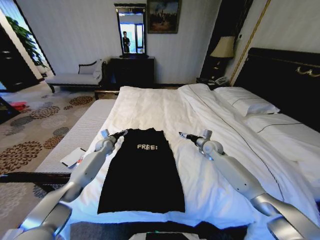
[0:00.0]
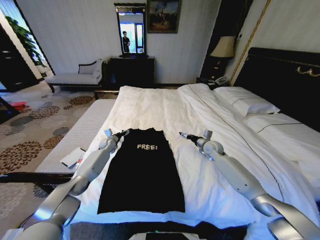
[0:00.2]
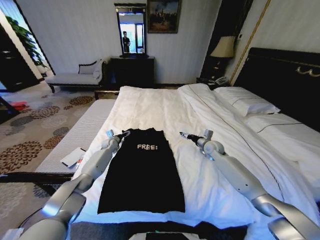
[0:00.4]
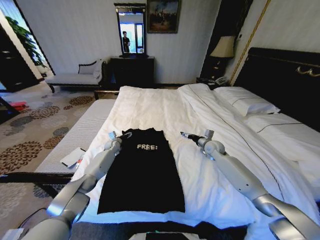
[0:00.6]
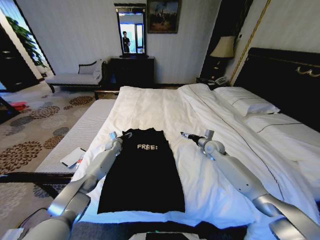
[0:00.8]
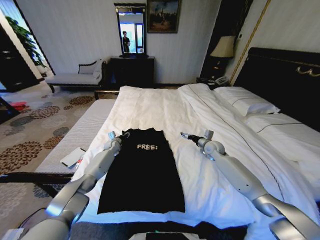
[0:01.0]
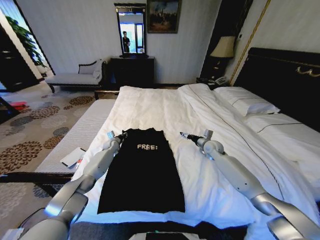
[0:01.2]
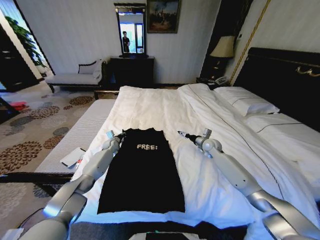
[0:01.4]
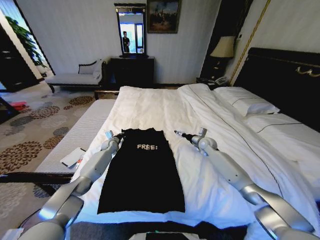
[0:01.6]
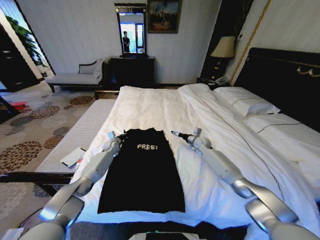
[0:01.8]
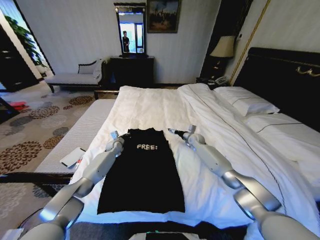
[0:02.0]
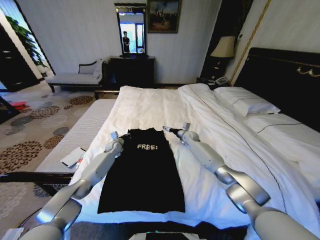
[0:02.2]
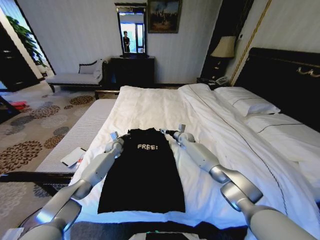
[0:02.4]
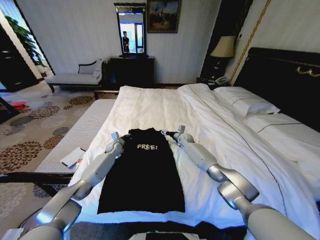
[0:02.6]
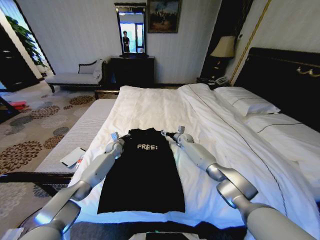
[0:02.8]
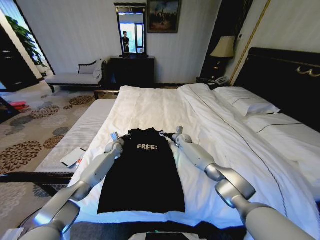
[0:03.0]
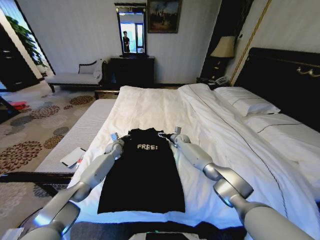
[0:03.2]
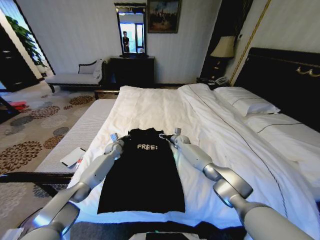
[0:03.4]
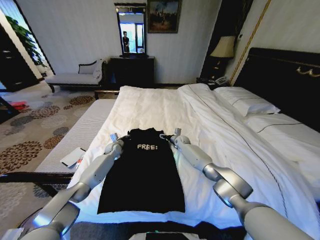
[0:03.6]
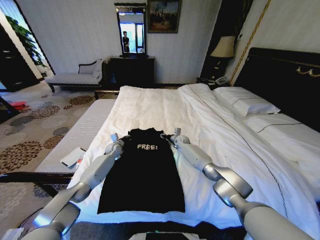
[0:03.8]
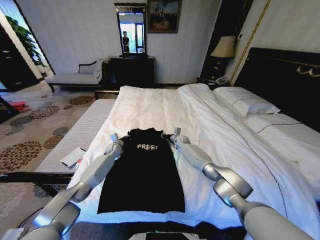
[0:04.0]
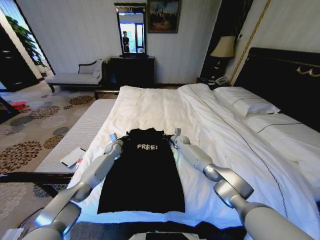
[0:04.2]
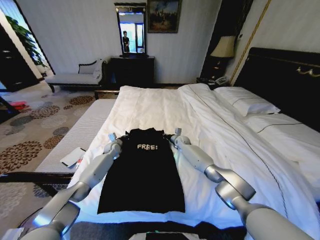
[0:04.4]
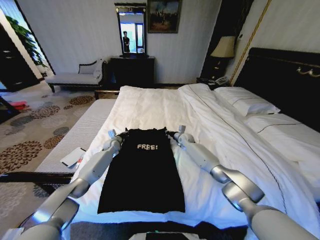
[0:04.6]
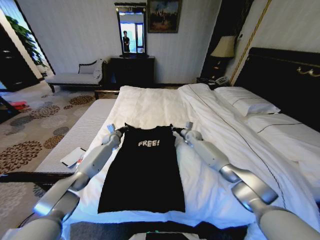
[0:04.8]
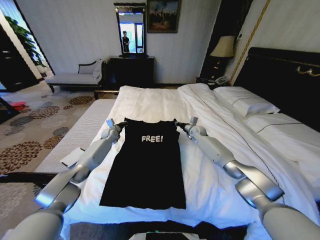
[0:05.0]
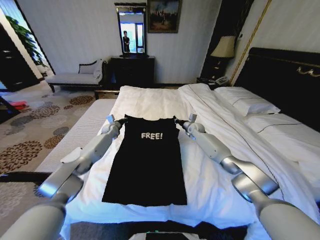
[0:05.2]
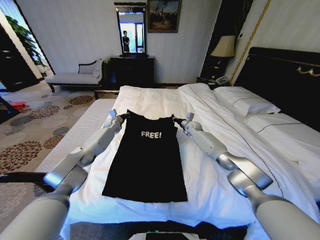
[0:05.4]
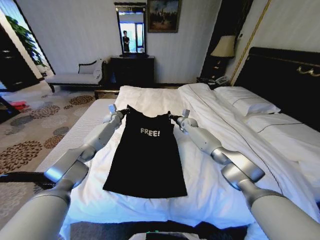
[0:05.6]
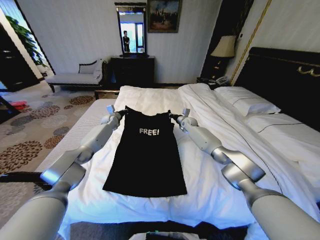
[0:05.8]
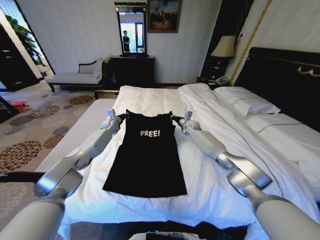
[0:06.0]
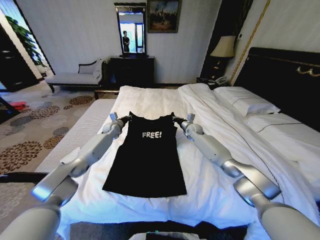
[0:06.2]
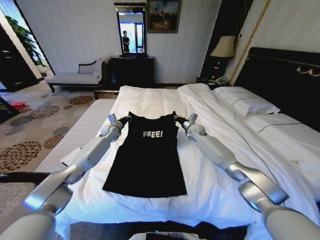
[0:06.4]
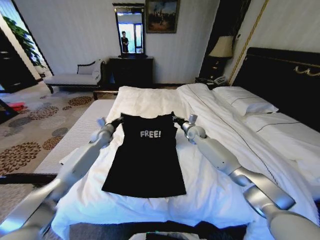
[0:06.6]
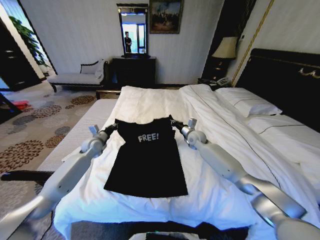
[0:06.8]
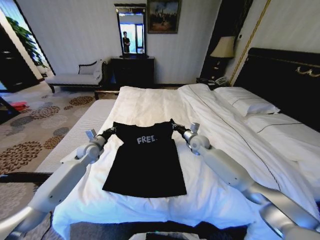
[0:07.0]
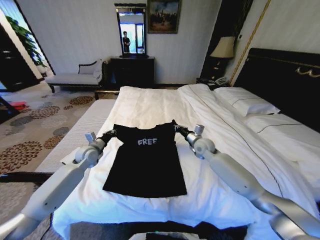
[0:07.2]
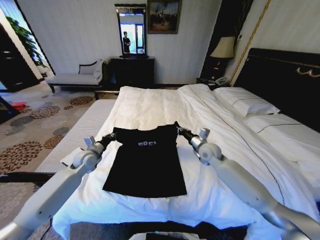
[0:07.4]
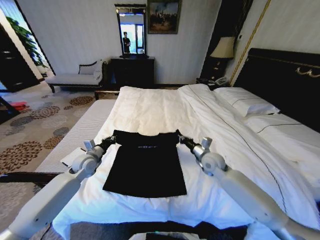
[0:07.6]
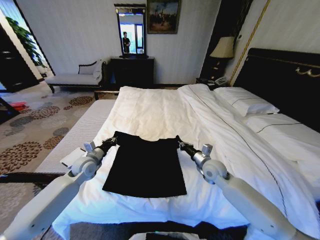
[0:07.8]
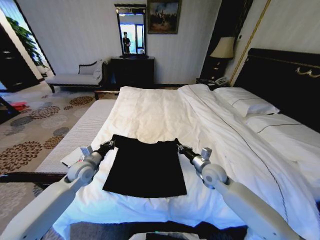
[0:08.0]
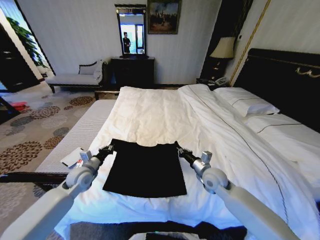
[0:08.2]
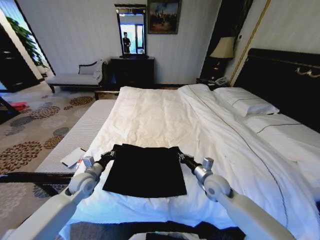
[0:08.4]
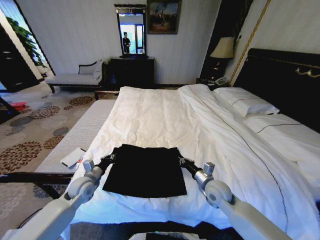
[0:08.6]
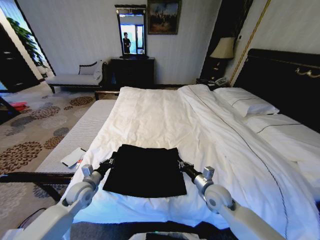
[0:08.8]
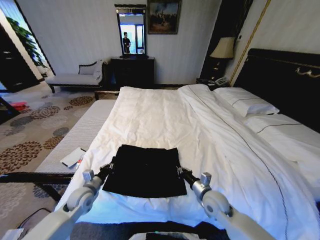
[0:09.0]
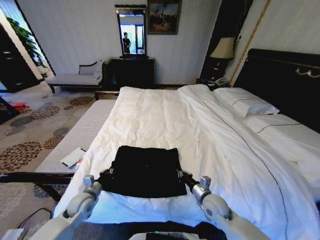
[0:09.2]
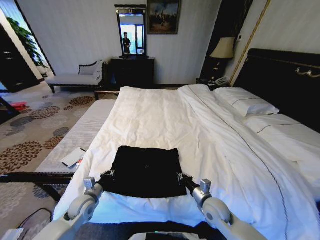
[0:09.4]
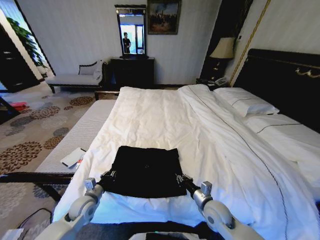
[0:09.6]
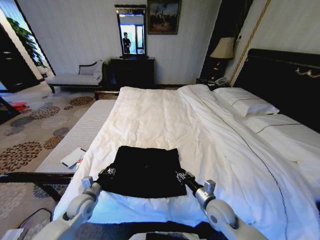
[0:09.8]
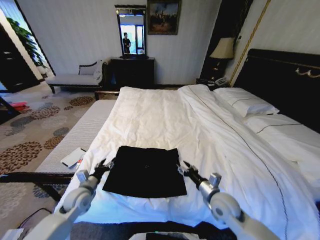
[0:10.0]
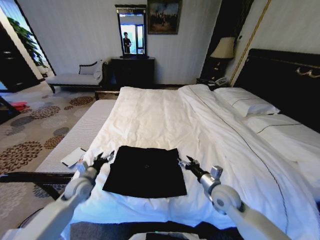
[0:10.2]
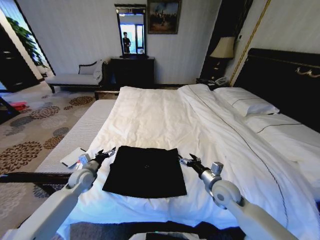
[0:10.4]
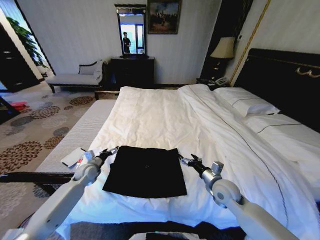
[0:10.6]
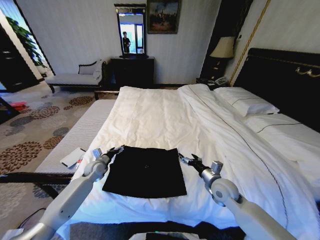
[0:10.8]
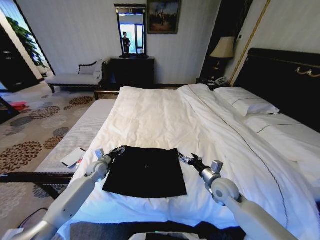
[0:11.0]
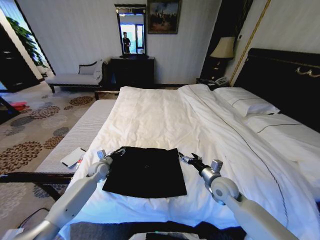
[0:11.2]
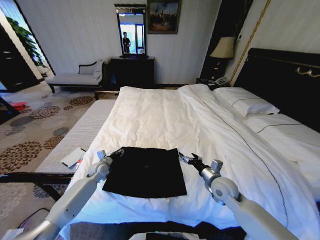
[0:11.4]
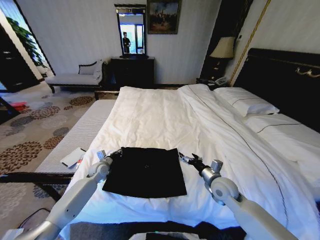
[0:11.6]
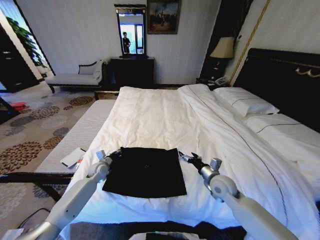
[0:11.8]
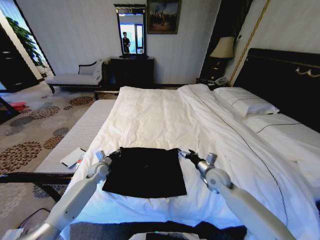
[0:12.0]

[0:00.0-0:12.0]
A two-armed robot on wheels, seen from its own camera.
Task of the whole recording: Fold the clothes on the bed.
0:00.0 to 0:01.6: The left gripper closes its fingers.
0:01.6 to 0:03.0: The right gripper moves to the left, forward and downward, some 15 cm.
0:03.0 to 0:04.4: The right gripper closes up.
0:04.4 to 0:06.0: The left gripper shifts approximately 15 cm upward and forward, while the right gripper travels upward by some 10 cm.
0:06.0 to 0:07.6: Both grippers move backward, about 25 cm.
0:07.6 to 0:09.0: Both grippers travel together backward and downward, about 15 cm.
0:09.0 to 0:10.4: The right gripper shifts about 5 cm upward, and opens its fingers. The left gripper travels forward by approximately 10 cm, and opens.
0:10.4 to 0:12.0: The right gripper shifts some 5 cm forward; the left gripper goes about 10 cm forward and downward, and closes up.

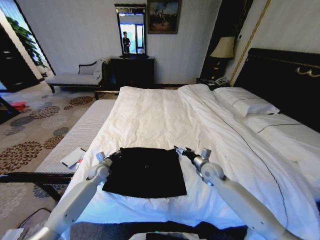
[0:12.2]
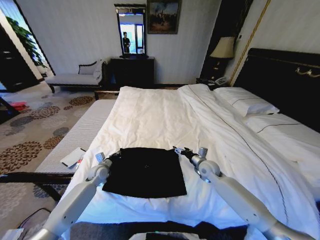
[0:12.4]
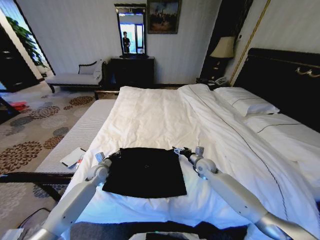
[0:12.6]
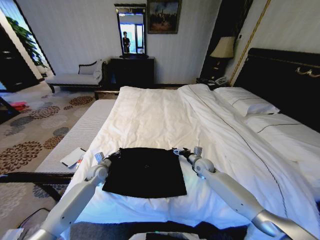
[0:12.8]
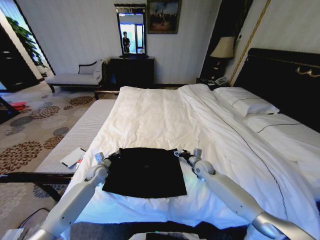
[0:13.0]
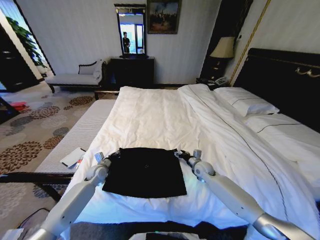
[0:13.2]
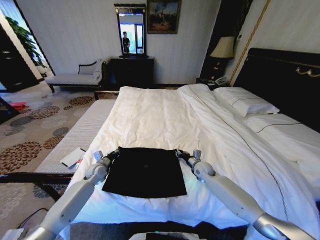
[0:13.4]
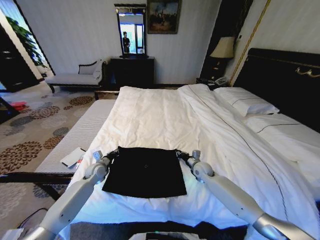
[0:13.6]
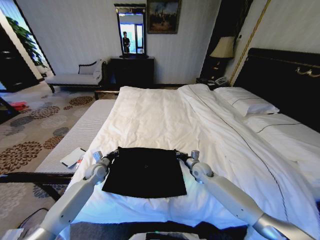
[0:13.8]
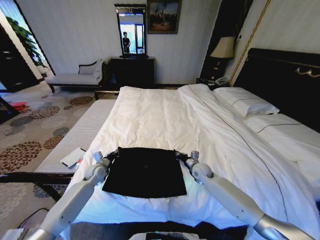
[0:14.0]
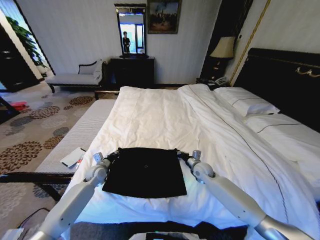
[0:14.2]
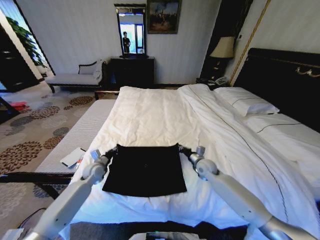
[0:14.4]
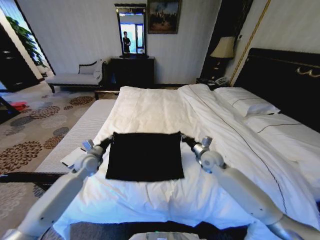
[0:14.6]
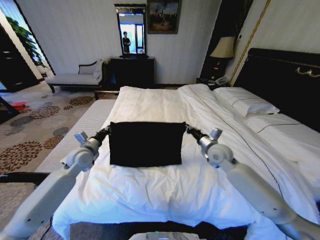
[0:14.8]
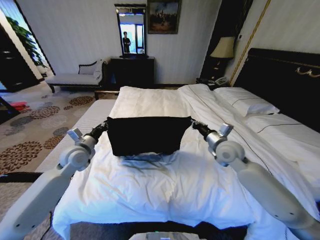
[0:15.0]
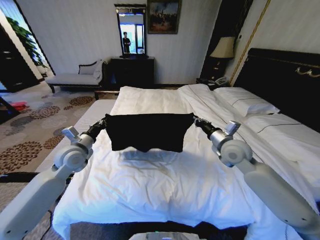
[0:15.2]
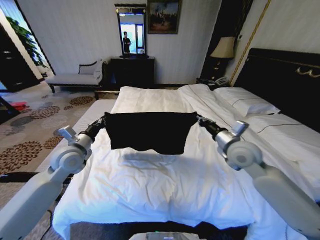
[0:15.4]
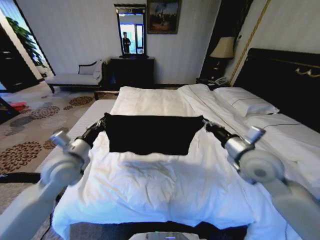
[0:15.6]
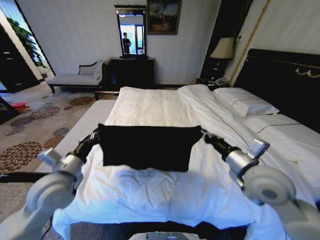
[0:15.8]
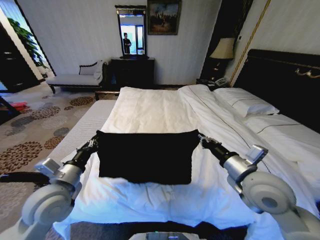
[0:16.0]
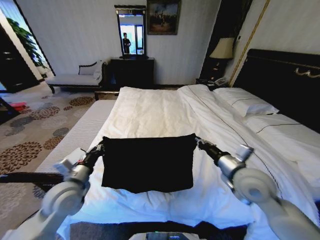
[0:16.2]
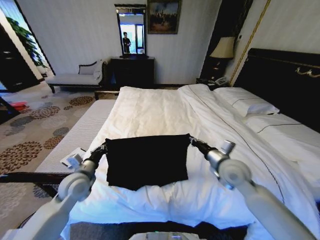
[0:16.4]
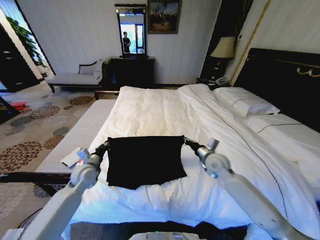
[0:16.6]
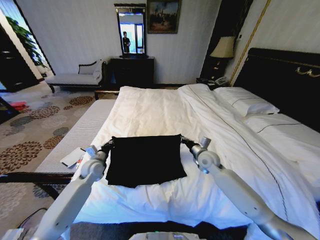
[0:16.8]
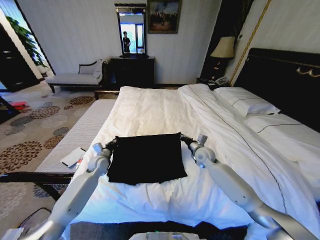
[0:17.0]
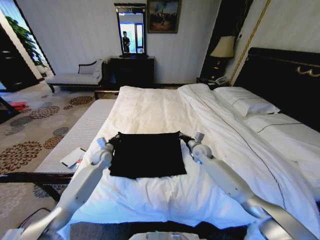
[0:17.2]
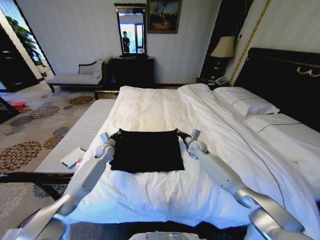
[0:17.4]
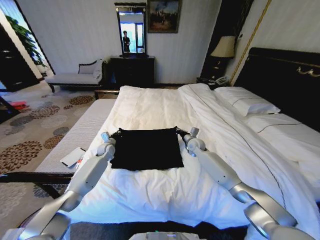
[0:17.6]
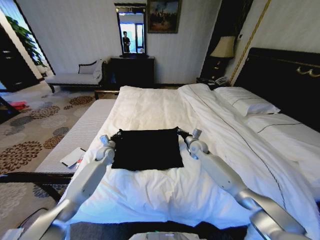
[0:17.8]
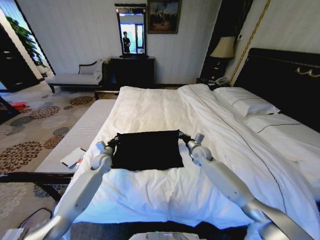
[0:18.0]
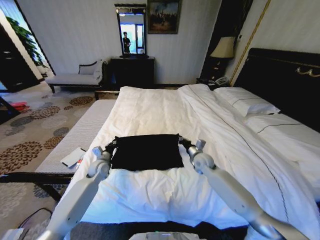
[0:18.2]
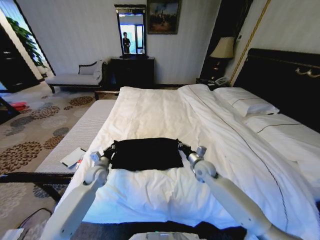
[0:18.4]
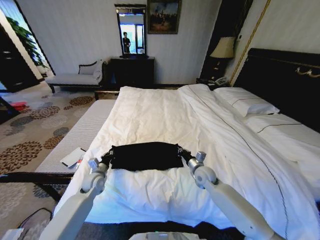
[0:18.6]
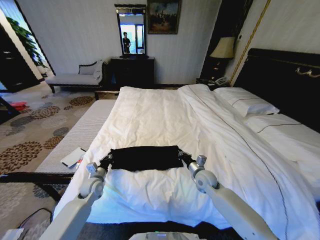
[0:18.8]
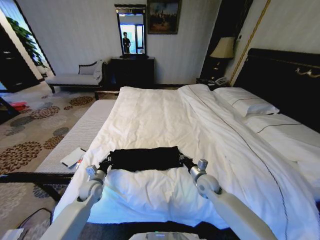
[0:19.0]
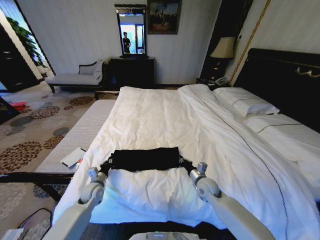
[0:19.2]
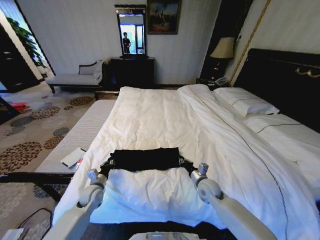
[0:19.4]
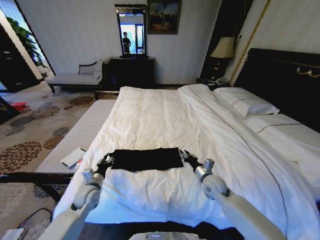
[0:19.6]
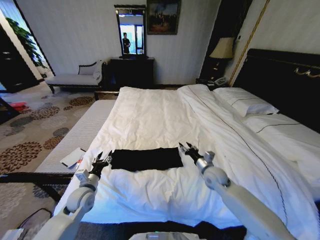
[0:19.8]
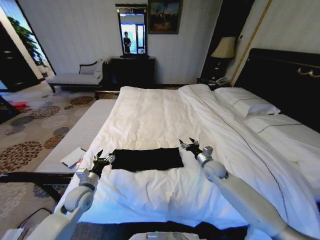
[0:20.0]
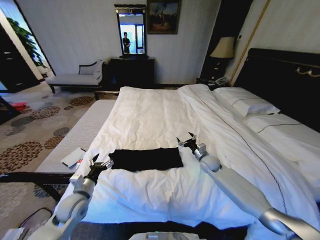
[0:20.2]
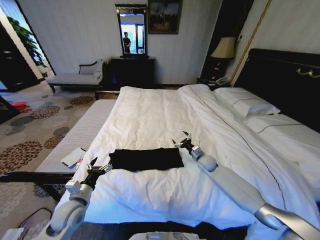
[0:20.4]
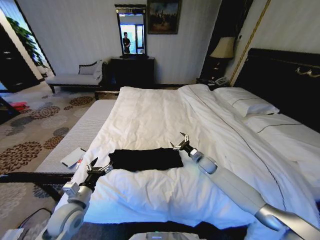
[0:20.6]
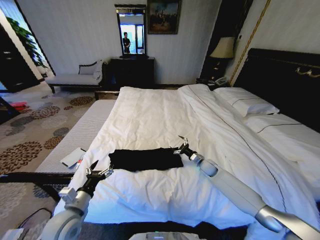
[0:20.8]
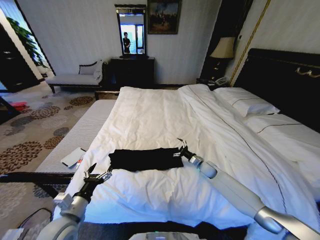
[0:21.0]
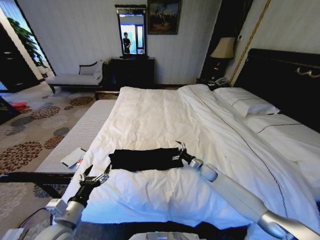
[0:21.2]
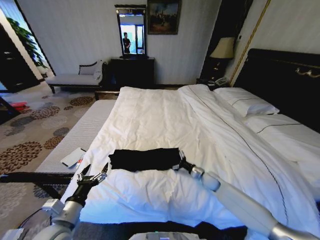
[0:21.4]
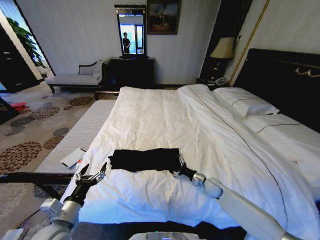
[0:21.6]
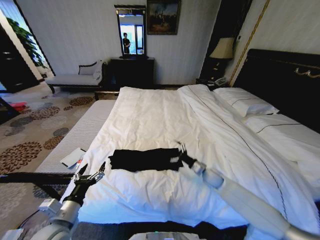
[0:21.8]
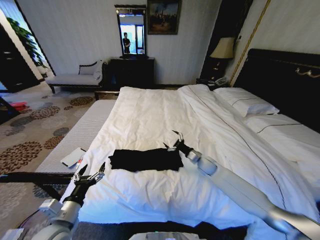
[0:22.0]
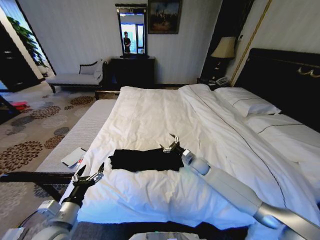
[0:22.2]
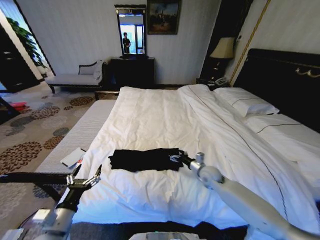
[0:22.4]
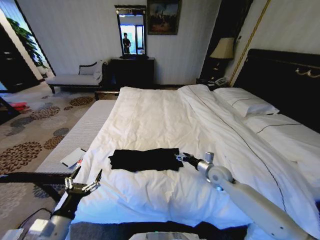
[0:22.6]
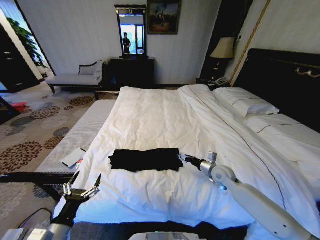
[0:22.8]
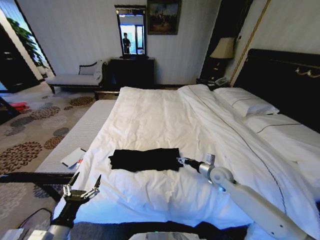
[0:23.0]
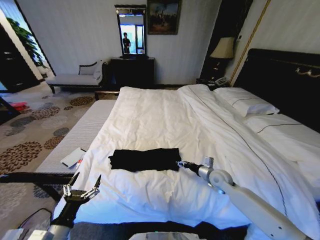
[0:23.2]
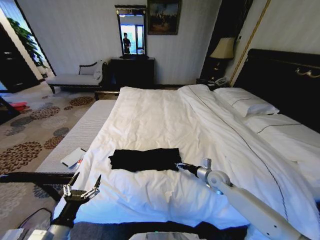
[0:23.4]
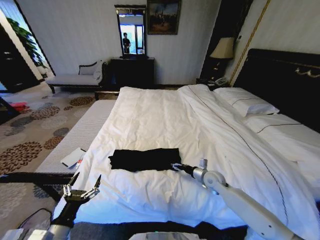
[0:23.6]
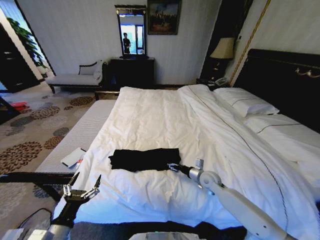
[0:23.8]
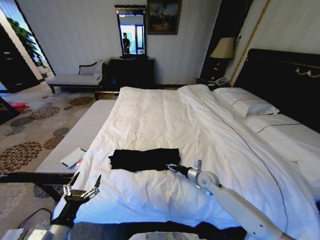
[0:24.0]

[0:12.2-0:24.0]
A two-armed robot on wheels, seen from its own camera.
Task of the whole recording: Fold the clothes on the bed.
0:12.2 to 0:13.6: The right gripper travels downward by some 5 cm, and closes up.
0:13.6 to 0:15.2: Both grippers move upward, about 20 cm.
0:15.2 to 0:16.6: Both grippers travel together downward, about 10 cm. The left gripper goes backward and returns, some 15 cm each way. Meanwhile the right gripper moves approximately 15 cm backward and comes back.
0:16.6 to 0:18.2: The left gripper heads forward and downward, covering approximately 10 cm. The right gripper travels downward by approximately 5 cm, and moves about 15 cm forward and comes back.
0:18.2 to 0:19.6: The two grippers go about 10 cm backward. The left gripper opens up.
0:19.6 to 0:21.0: The right gripper goes roughly 15 cm forward and downward, and opens, while the left gripper heads backward and upward, covering approximately 15 cm, and opens.
0:21.0 to 0:22.6: The right gripper shifts approximately 10 cm upward and backward; the left gripper shifts roughly 5 cm backward.
0:22.6 to 0:24.0: The right gripper is displaced downward by roughly 5 cm.
